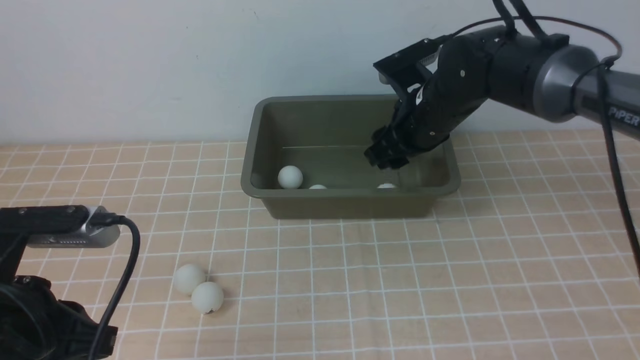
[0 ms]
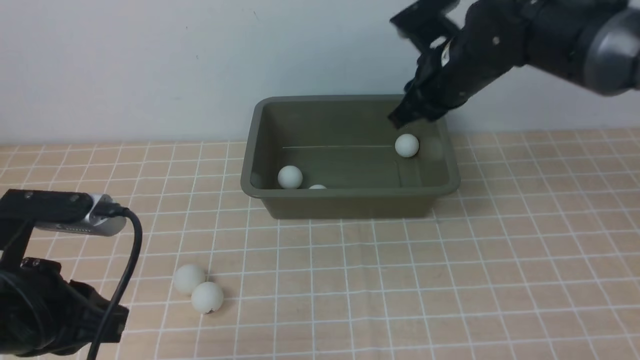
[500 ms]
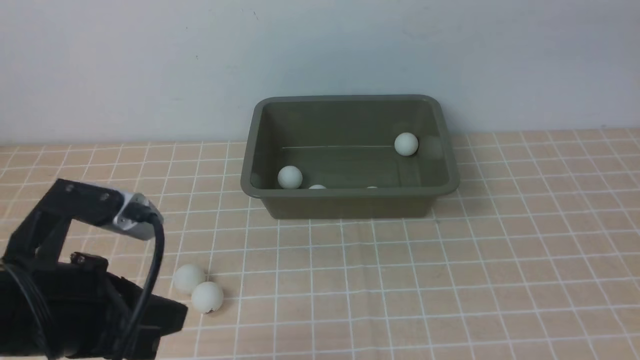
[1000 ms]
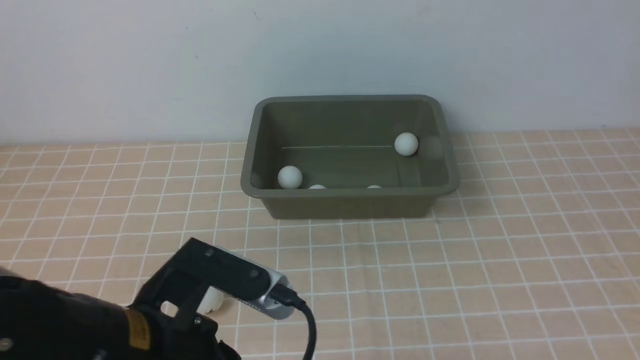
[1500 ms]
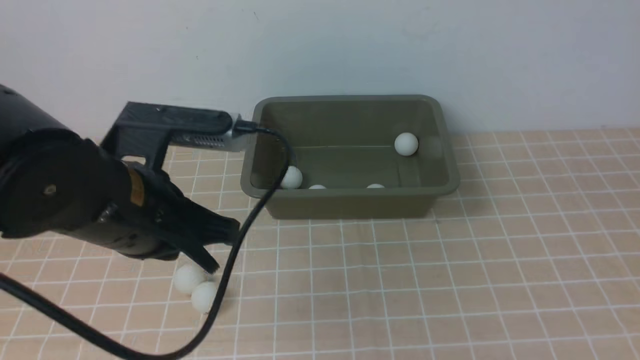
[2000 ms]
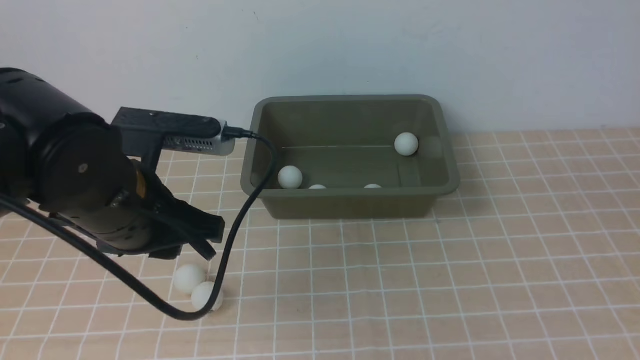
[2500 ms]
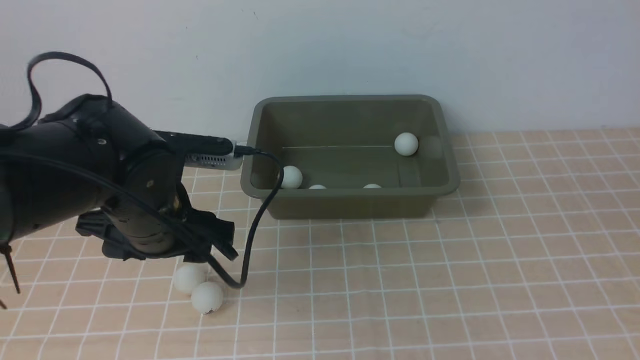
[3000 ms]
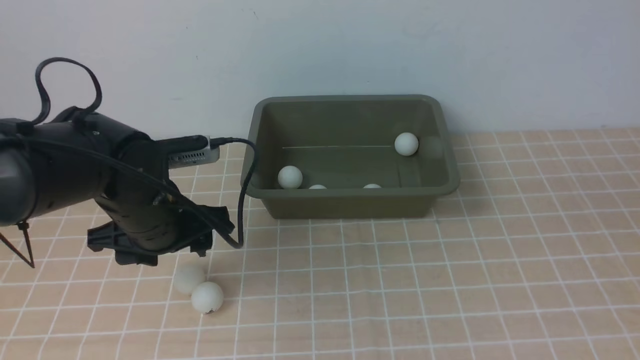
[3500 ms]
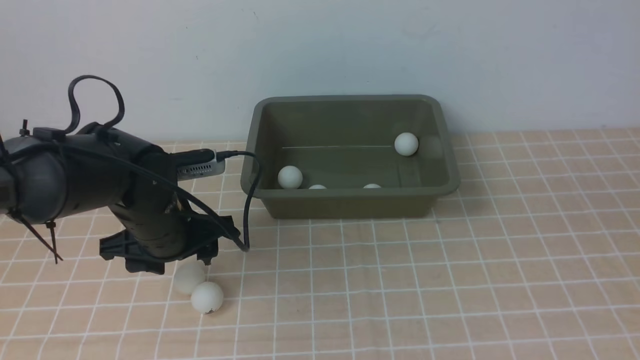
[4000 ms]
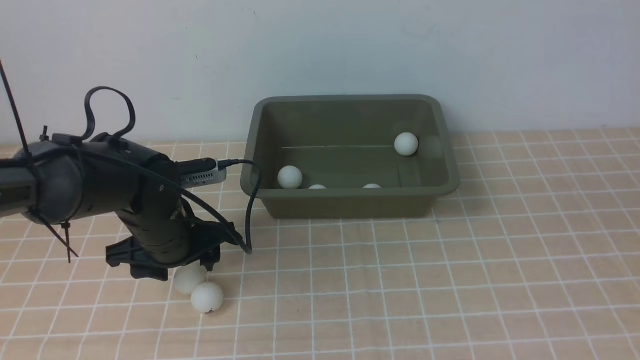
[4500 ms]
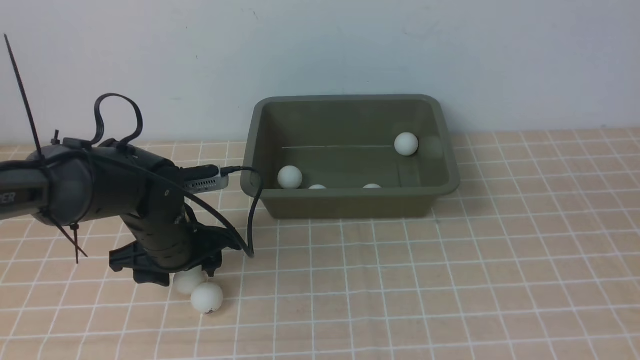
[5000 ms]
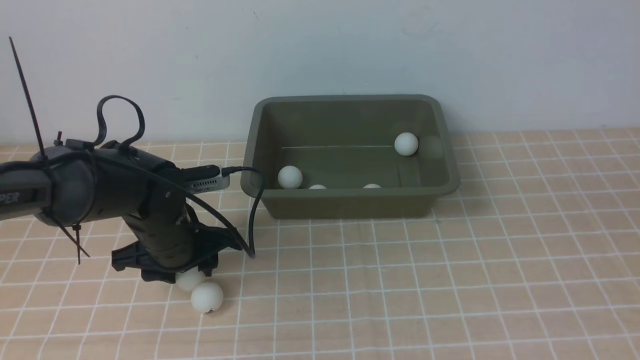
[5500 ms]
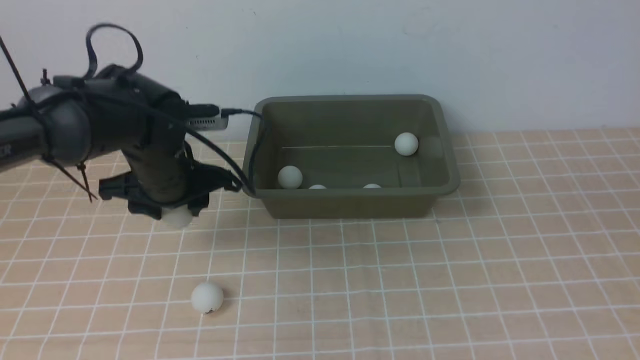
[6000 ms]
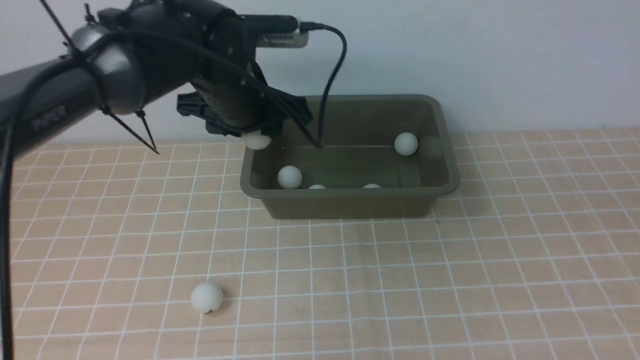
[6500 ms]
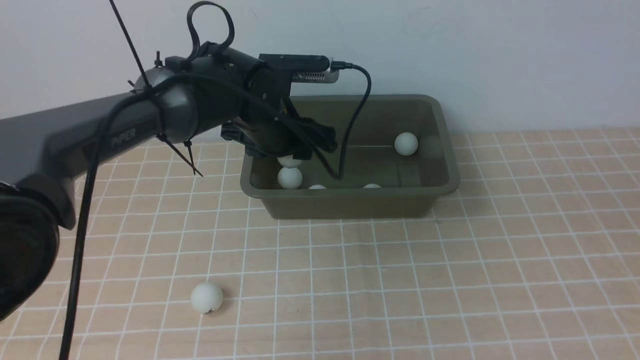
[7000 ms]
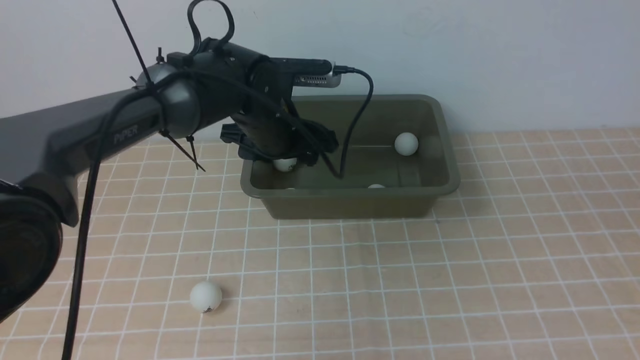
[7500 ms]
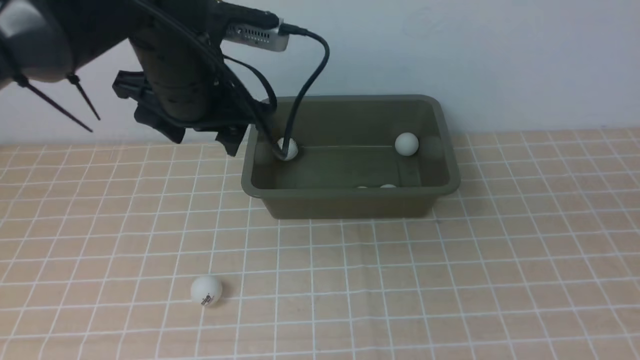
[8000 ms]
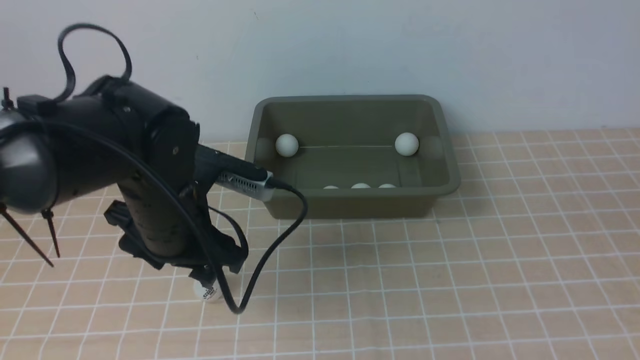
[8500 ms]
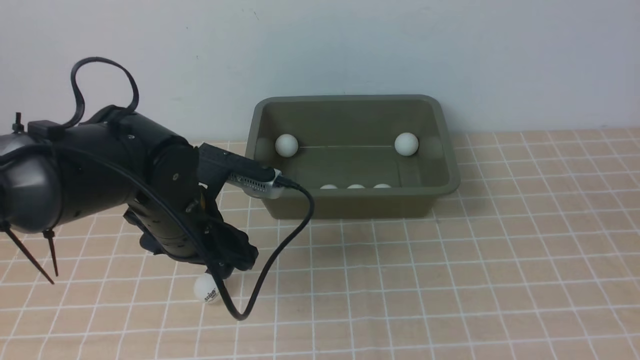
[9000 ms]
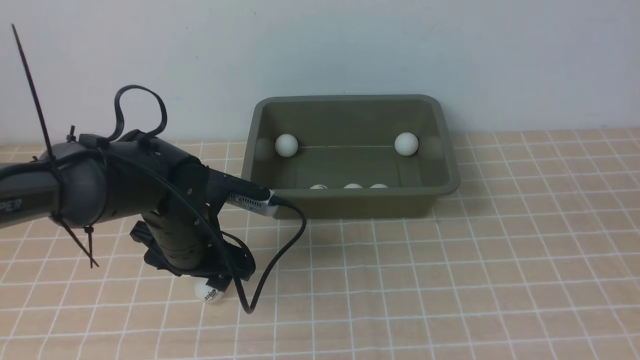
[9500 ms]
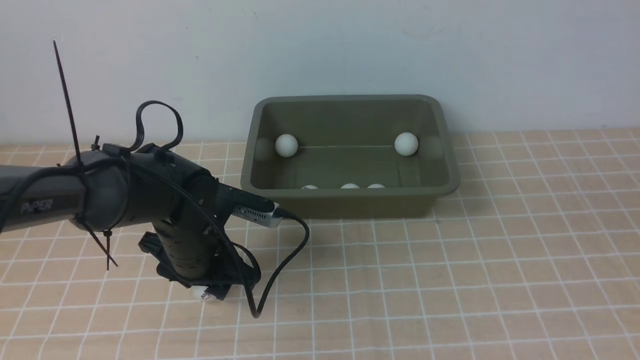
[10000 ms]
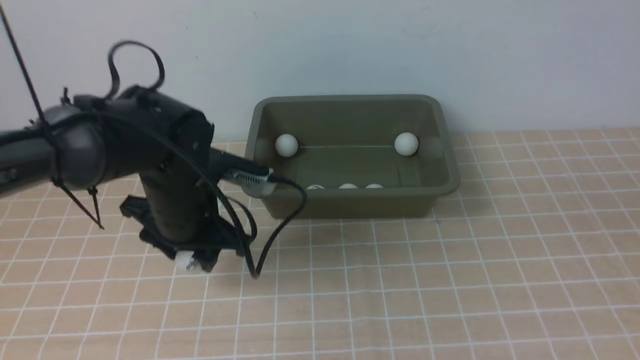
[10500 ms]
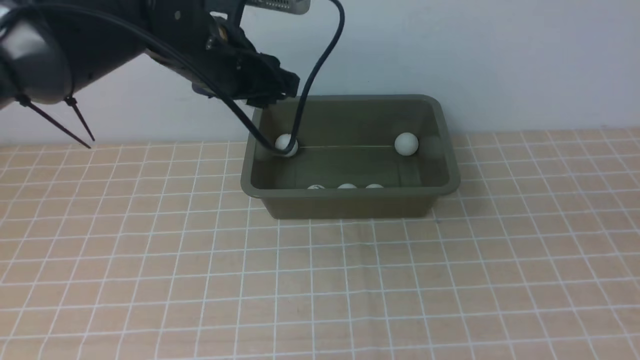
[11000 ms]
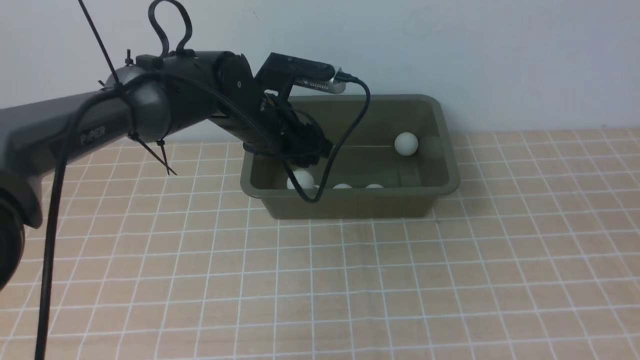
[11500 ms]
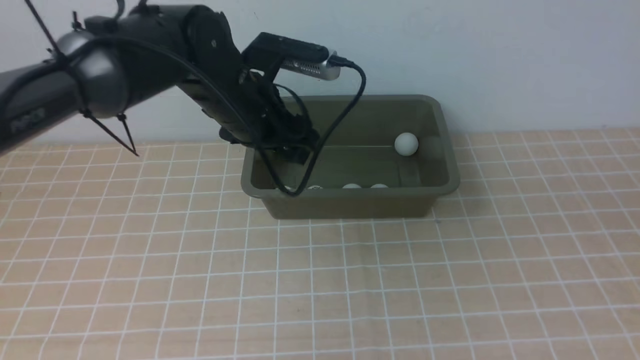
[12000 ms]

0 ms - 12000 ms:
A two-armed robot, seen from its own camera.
Step, 500 ms - 5500 ms: use the left arm to clamp the table tennis ball closest to it.
Step, 6000 ms - 7500 ms: use the left arm to put the table tennis ball into the box.
Step, 8000 ms - 10500 ms: use the left arm to clamp the table tennis ball closest to it.
Step, 11000 ms - 11500 ms: use the left arm to put the table tennis ball into the box.
0 ms - 2000 ms: The right gripper travels backward, upward and to the right by some 40 cm, and closes its fingers. The left gripper shifts about 10 cm to the right and forward.
2000 ms - 4000 ms: The left gripper travels forward and downward by roughly 15 cm, and opens up.
4000 ms - 6000 ms: The grippers move only a little.
6000 ms - 8000 ms: The left gripper moves up and down over about 10 cm, changing direction 2 times.
8000 ms - 10000 ms: The left gripper is displaced downward by some 15 cm.
10000 ms - 12000 ms: The left gripper heads upward, forward and to the right, covering about 15 cm.

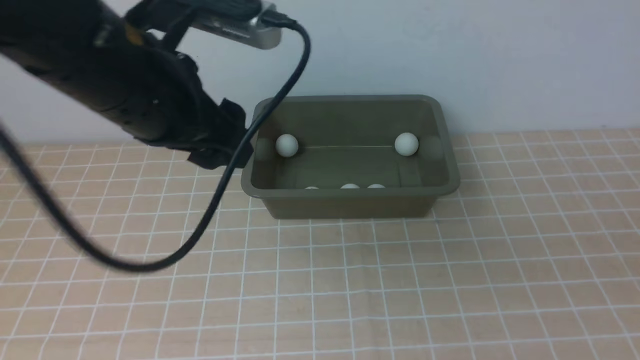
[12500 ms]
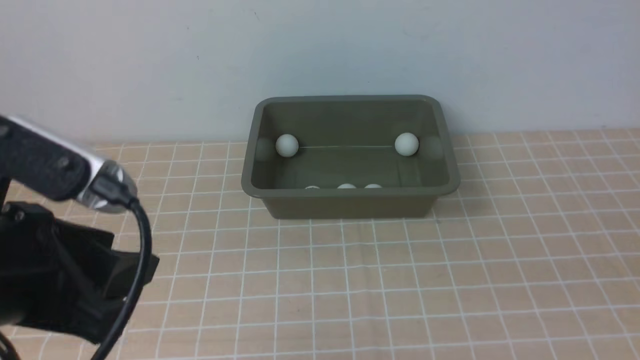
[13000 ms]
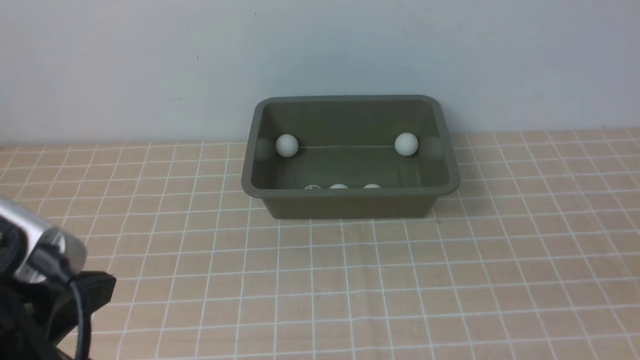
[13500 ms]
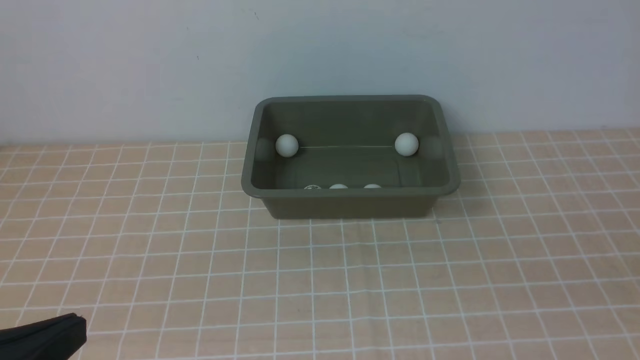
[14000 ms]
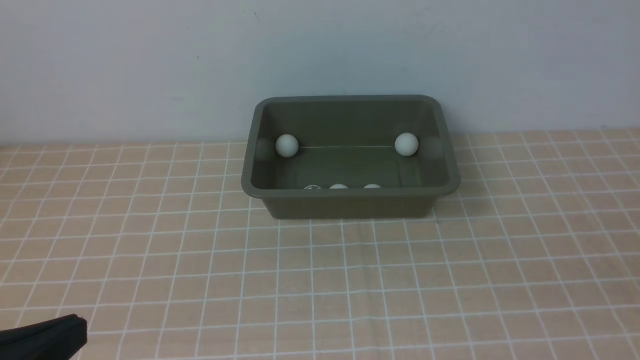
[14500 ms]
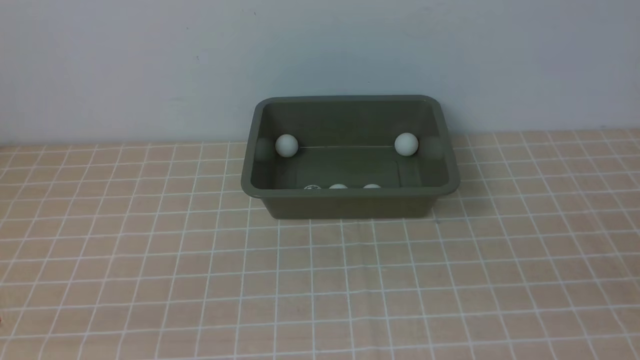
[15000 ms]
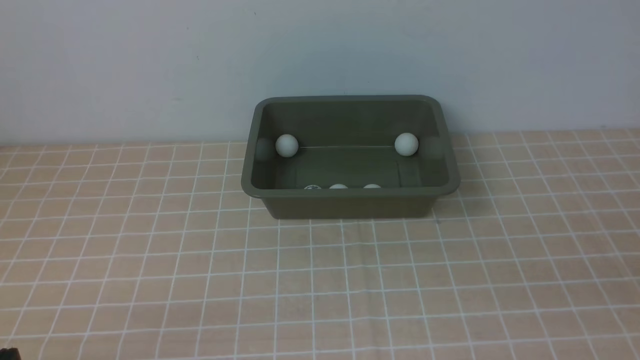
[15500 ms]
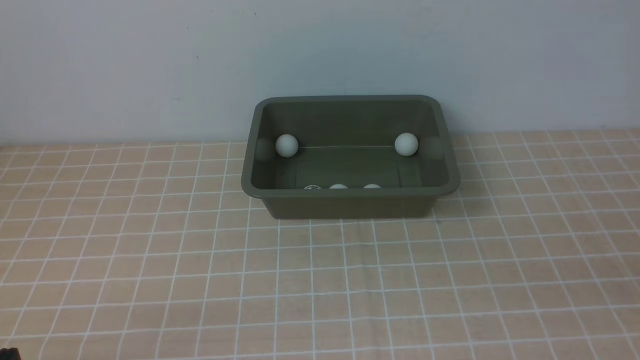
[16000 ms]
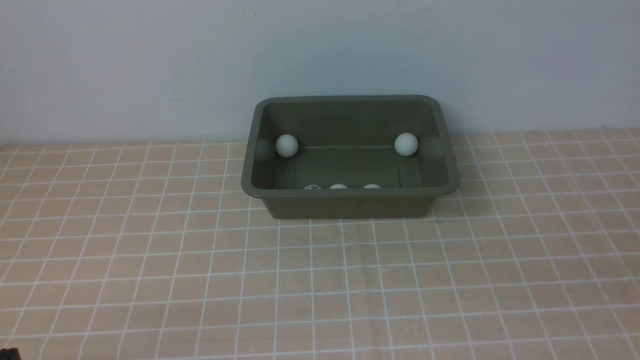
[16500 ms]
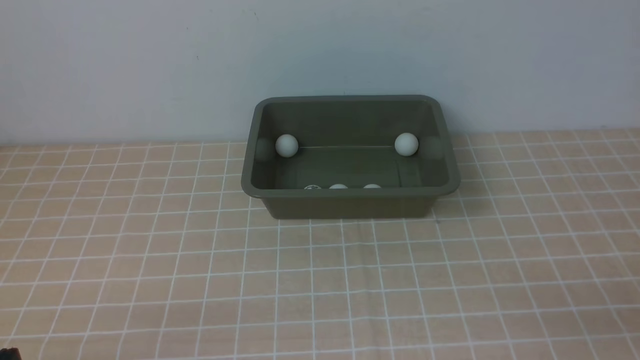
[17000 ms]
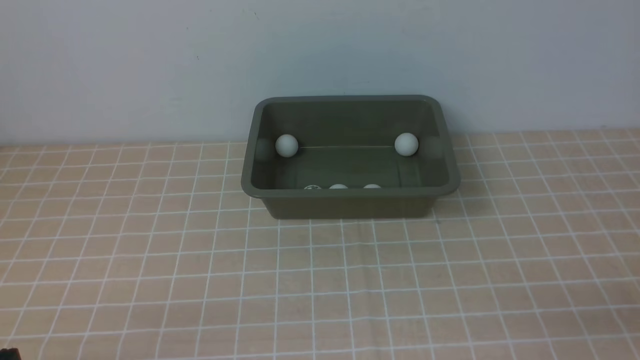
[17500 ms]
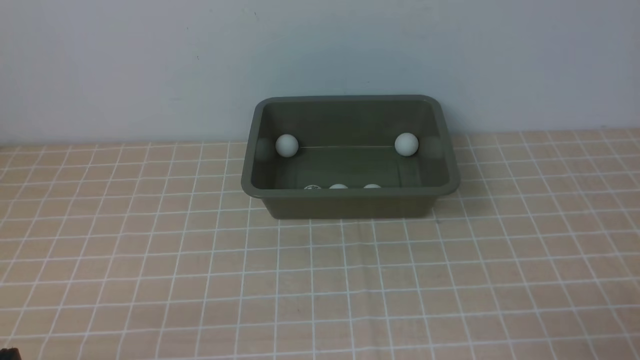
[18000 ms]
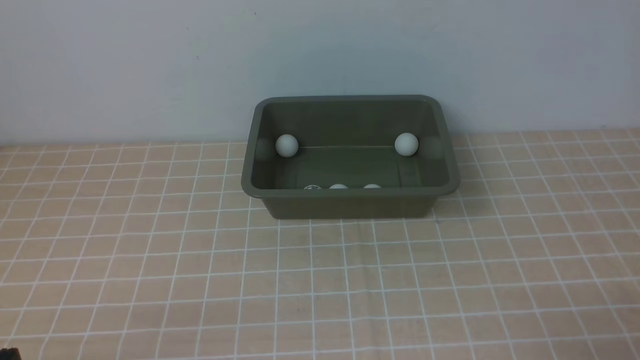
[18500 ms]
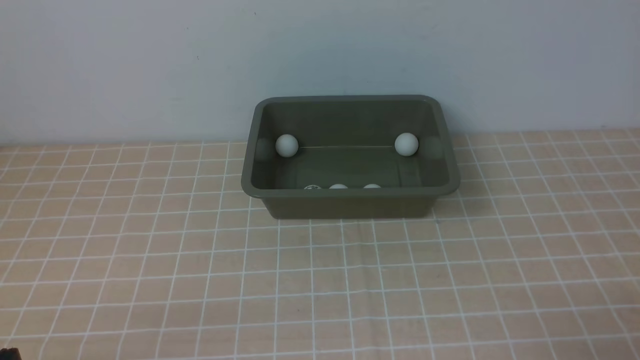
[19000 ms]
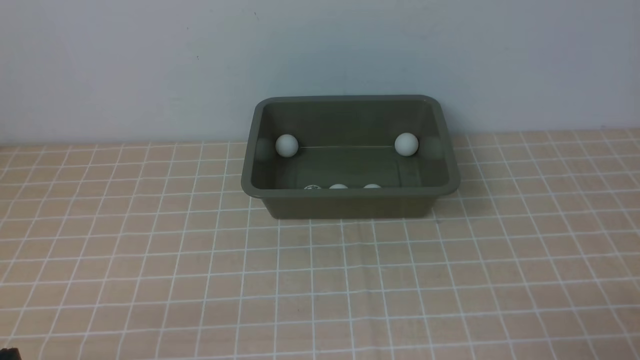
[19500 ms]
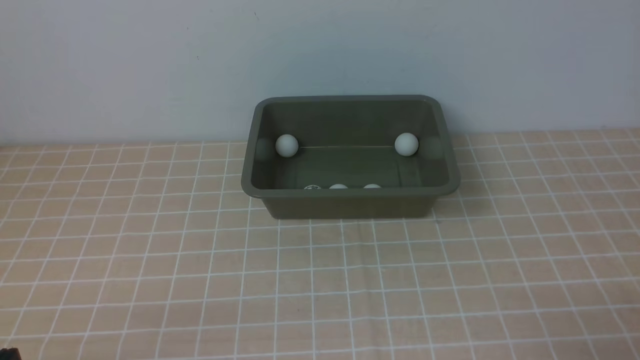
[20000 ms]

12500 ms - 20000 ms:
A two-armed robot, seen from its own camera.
12500 ms - 14500 ms: The left gripper moves backward and to the left, roughly 25 cm, and closes its fingers. Meanwhile the right gripper changes place by approximately 5 cm.
14500 ms - 16500 ms: The left gripper moves downward, about 10 cm.
18000 ms - 20000 ms: Both grippers stay about where they are.
